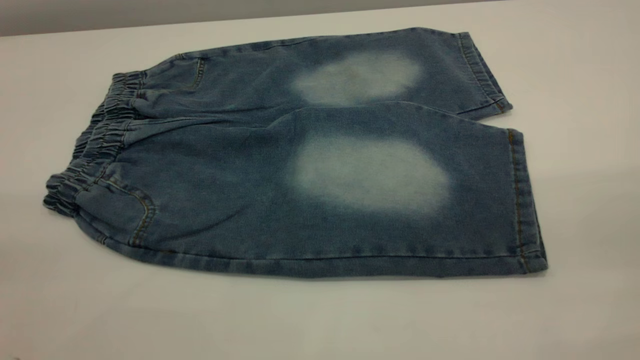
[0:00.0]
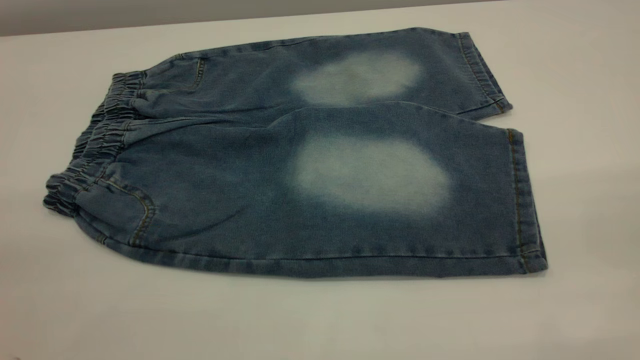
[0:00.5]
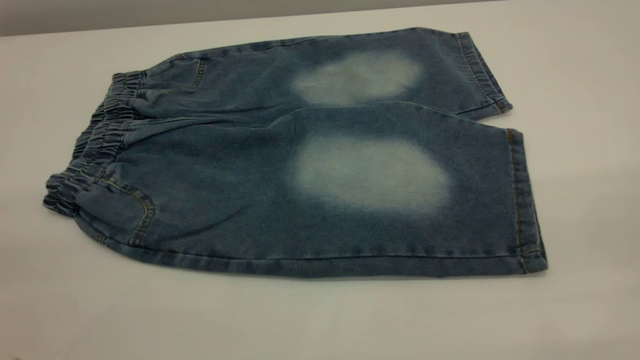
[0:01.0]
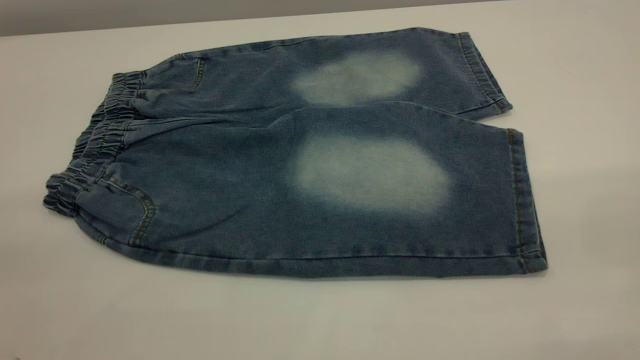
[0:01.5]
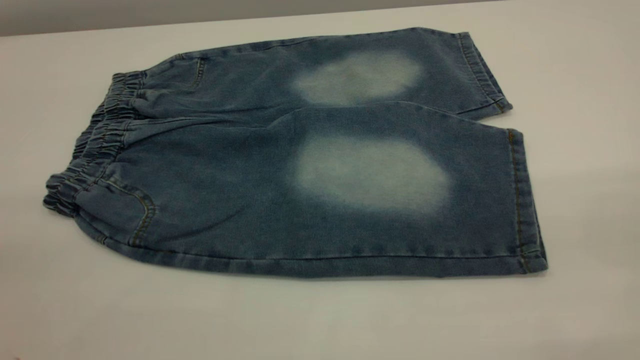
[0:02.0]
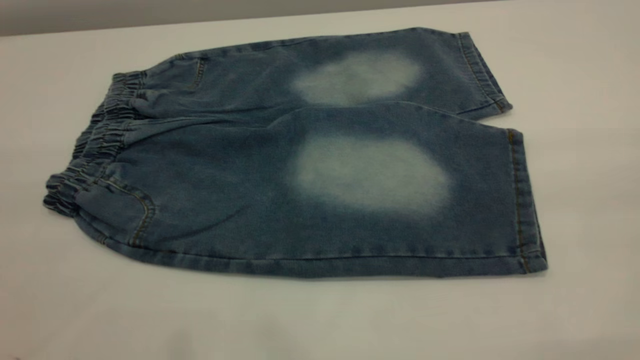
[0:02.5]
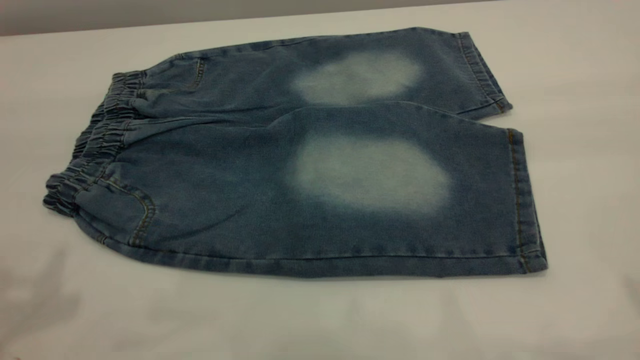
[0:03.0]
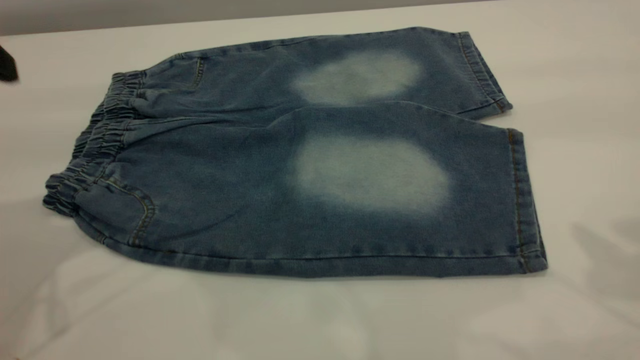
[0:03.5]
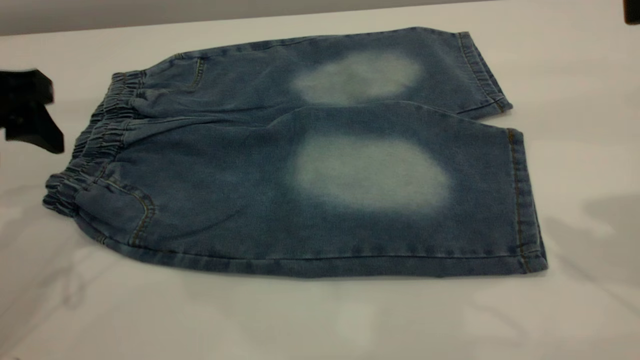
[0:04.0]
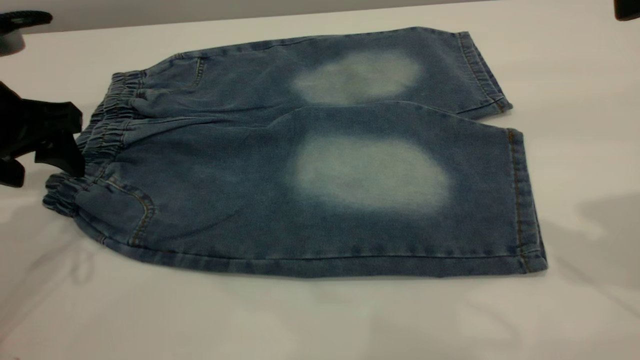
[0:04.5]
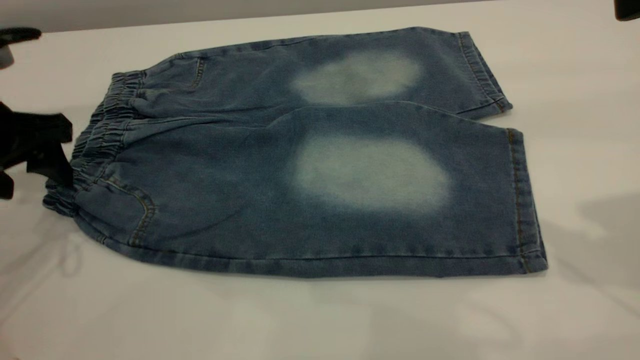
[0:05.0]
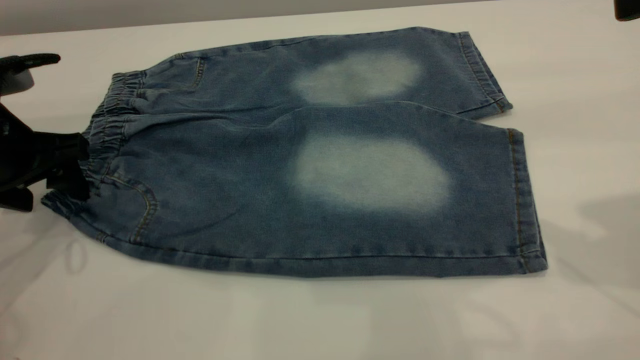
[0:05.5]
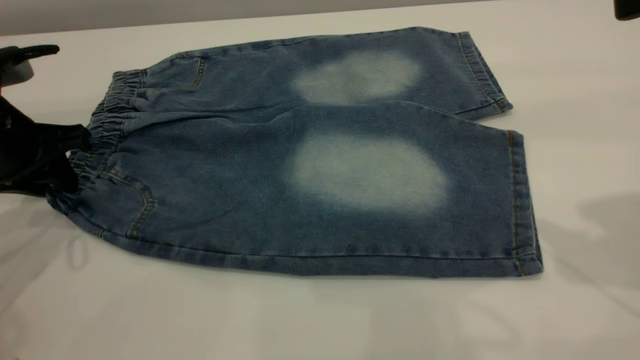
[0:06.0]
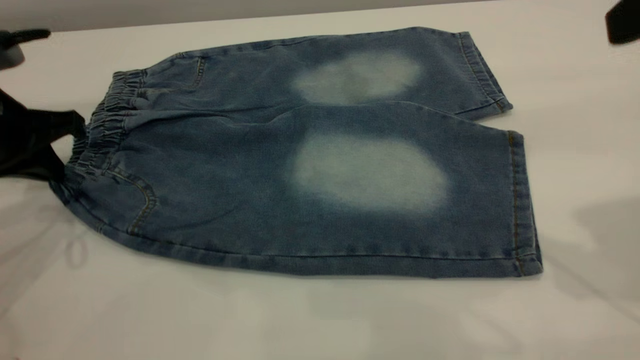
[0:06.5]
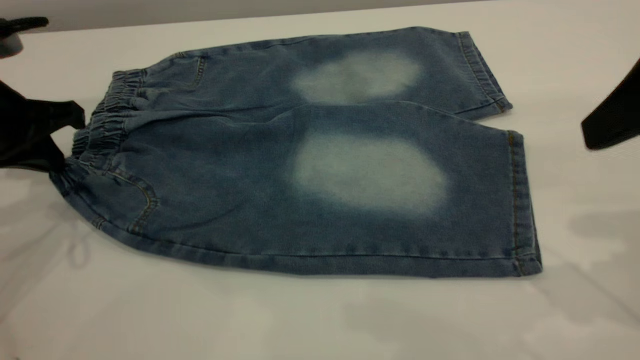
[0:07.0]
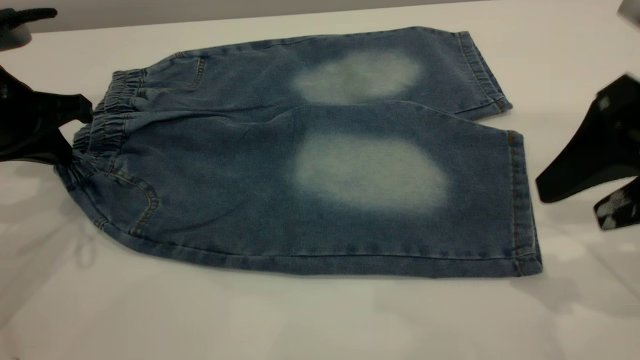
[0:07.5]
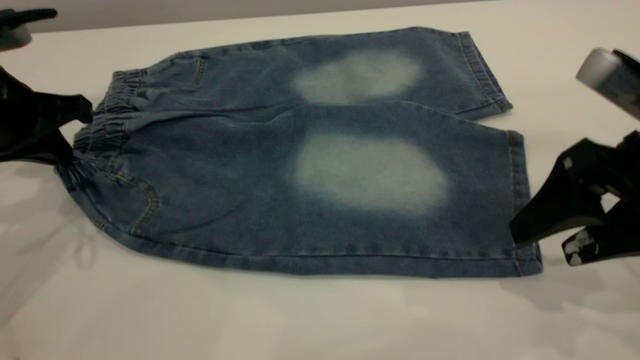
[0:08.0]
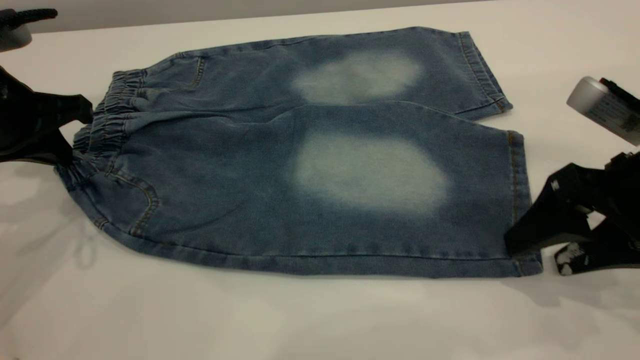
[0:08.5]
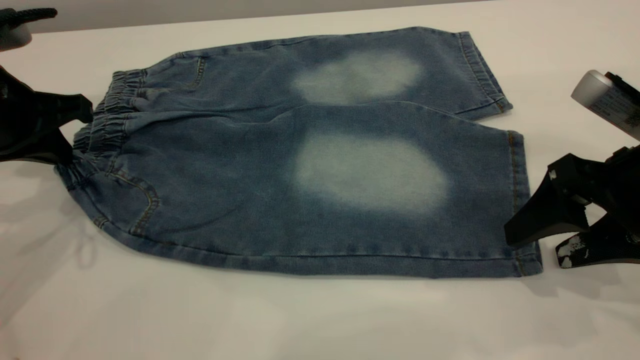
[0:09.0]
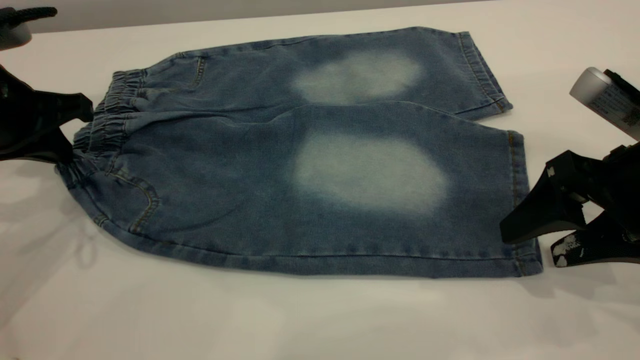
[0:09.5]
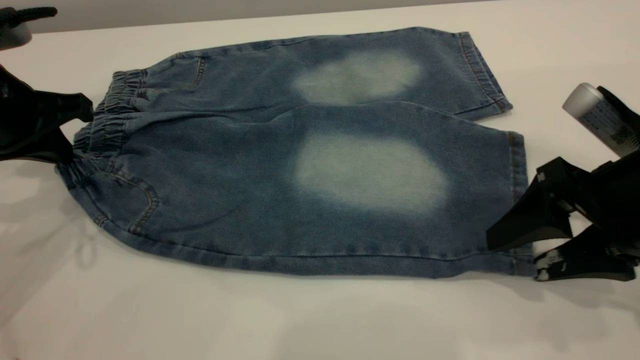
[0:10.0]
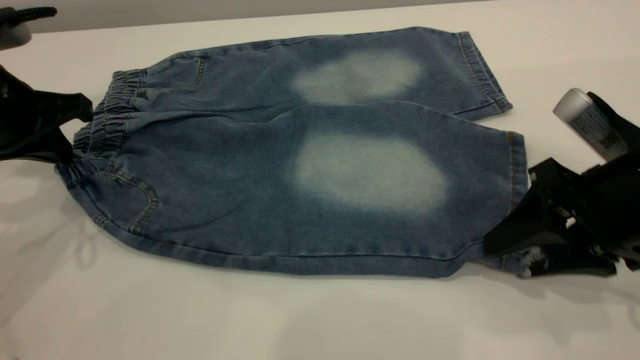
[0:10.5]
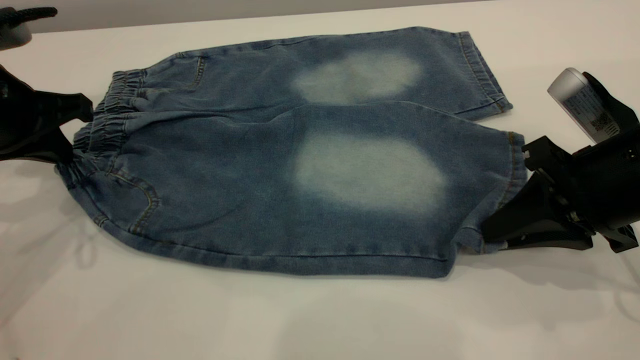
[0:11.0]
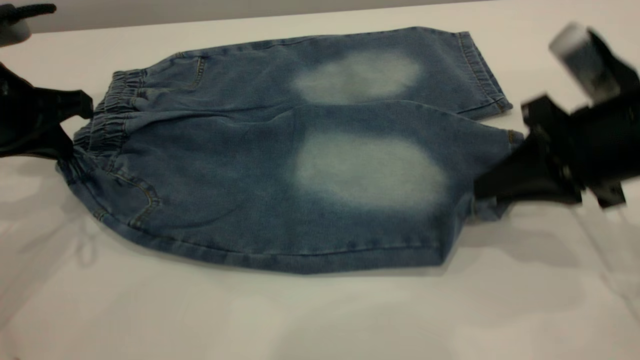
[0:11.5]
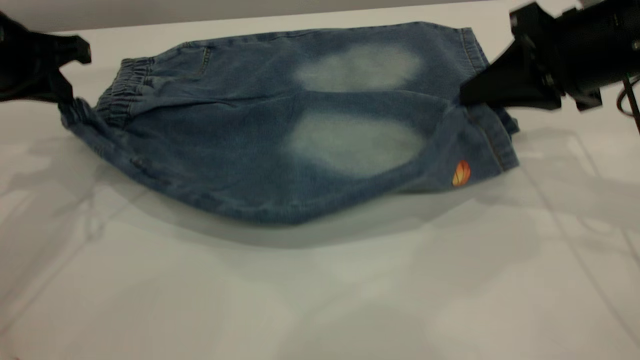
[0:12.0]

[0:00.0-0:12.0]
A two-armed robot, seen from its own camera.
0:00.0 to 0:02.0: The two grippers keep their place.
0:02.0 to 0:04.0: The left gripper goes roughly 30 cm forward and downward.
0:04.0 to 0:06.0: The left gripper goes about 5 cm downward, and closes.
0:06.0 to 0:08.0: The left gripper closes up. Meanwhile the right gripper goes approximately 15 cm downward.
0:08.0 to 0:10.0: The grippers move only a little.
0:10.0 to 0:12.0: The right gripper is displaced forward and upward by some 10 cm, and closes.

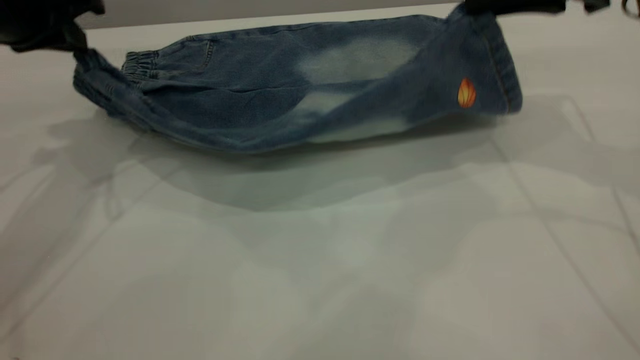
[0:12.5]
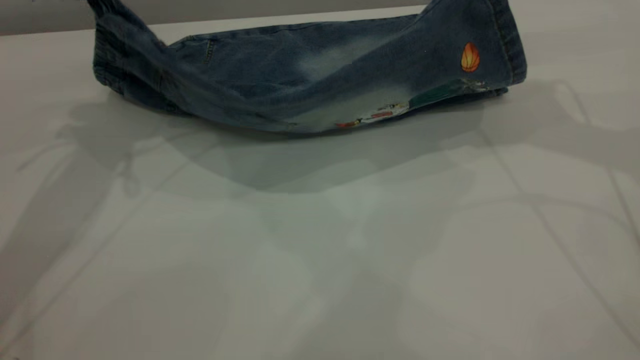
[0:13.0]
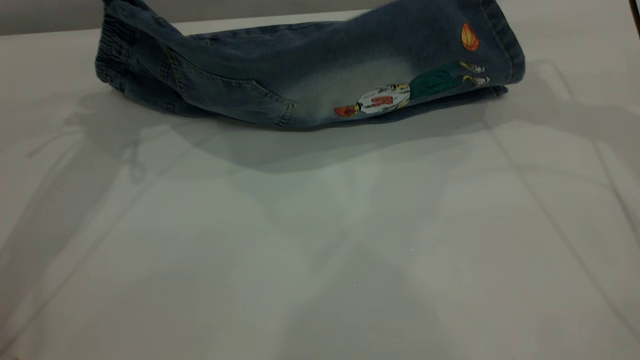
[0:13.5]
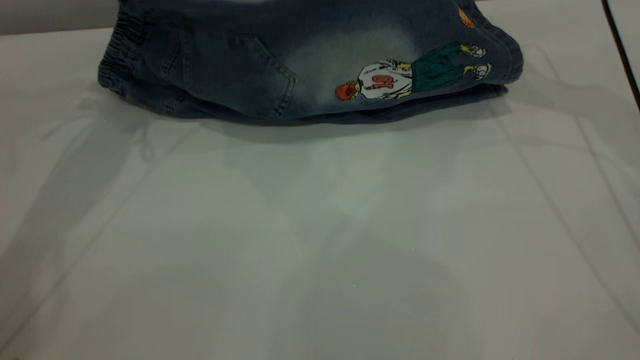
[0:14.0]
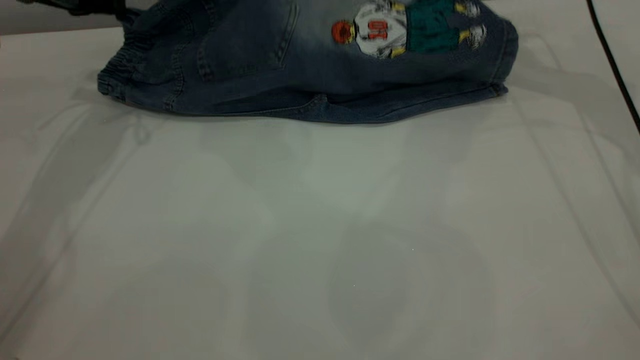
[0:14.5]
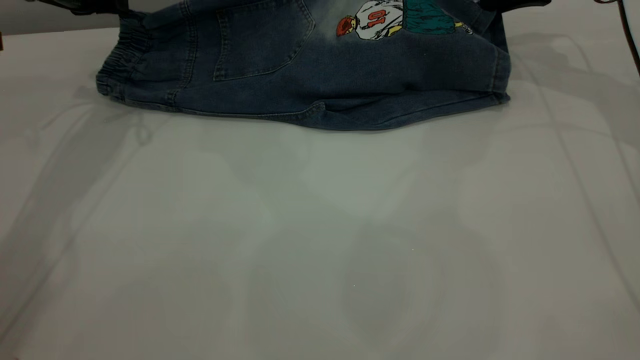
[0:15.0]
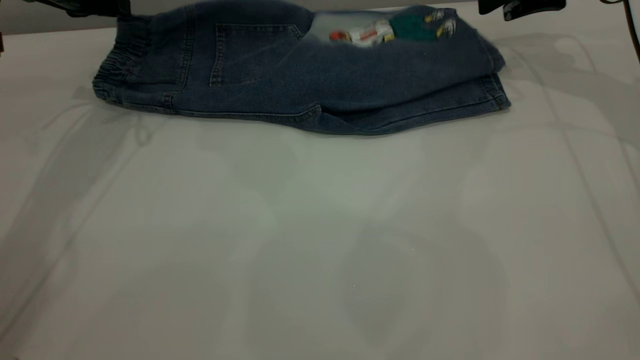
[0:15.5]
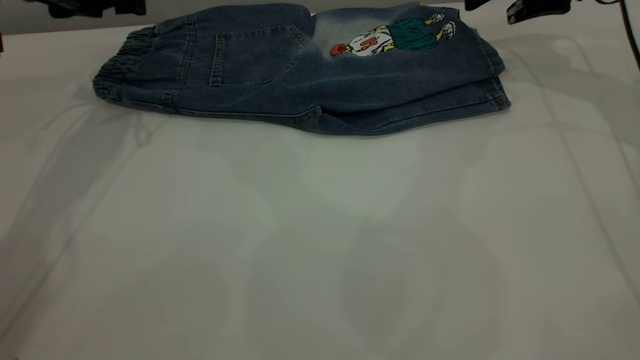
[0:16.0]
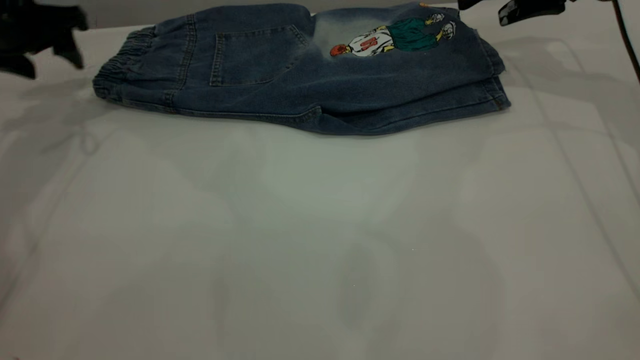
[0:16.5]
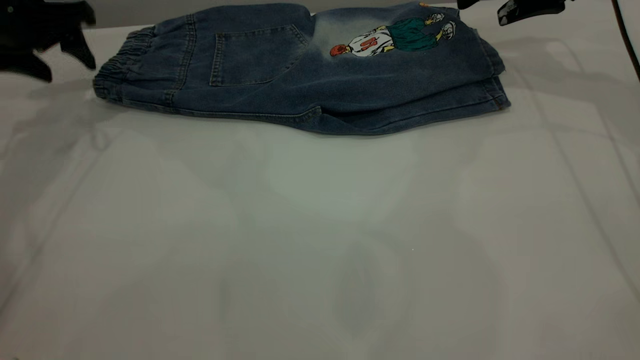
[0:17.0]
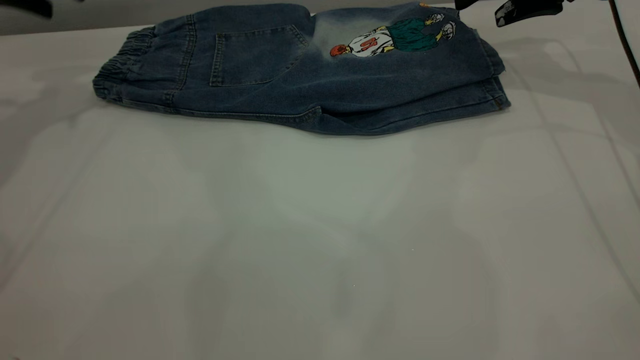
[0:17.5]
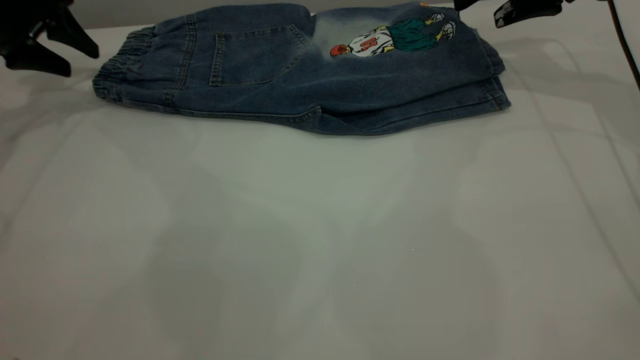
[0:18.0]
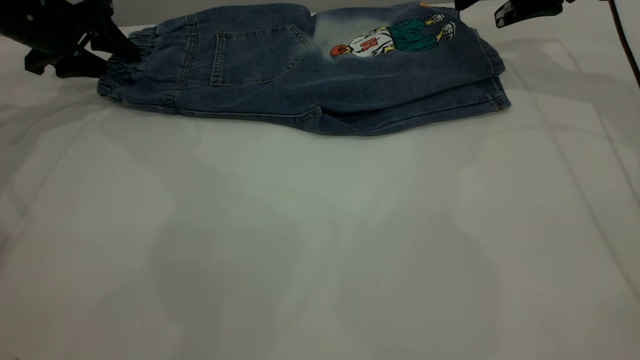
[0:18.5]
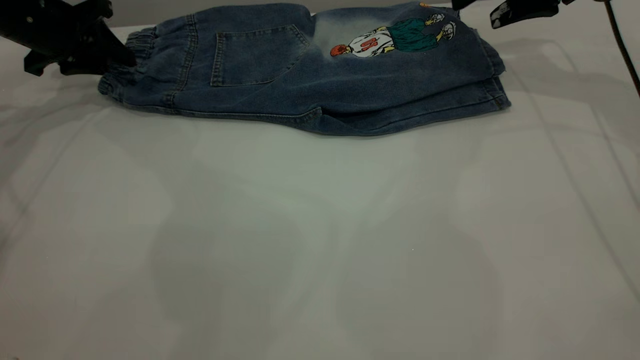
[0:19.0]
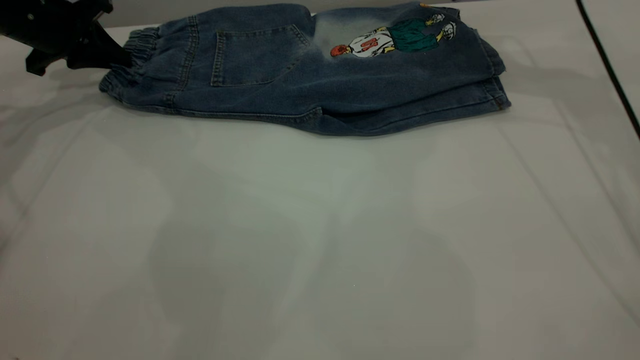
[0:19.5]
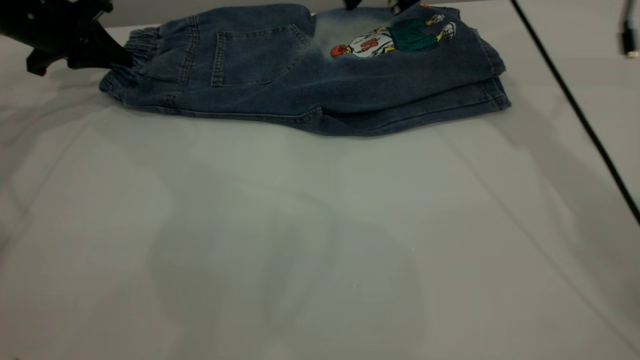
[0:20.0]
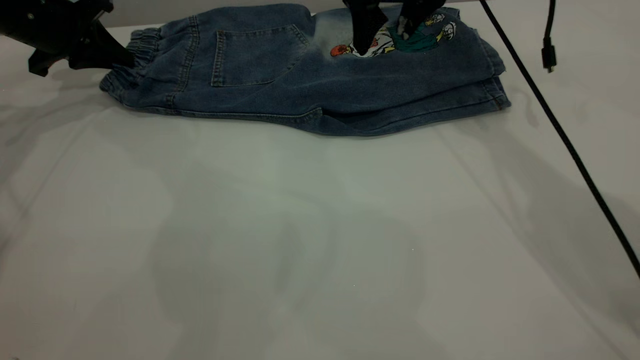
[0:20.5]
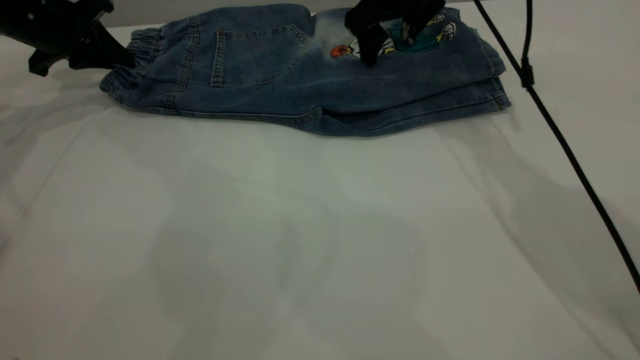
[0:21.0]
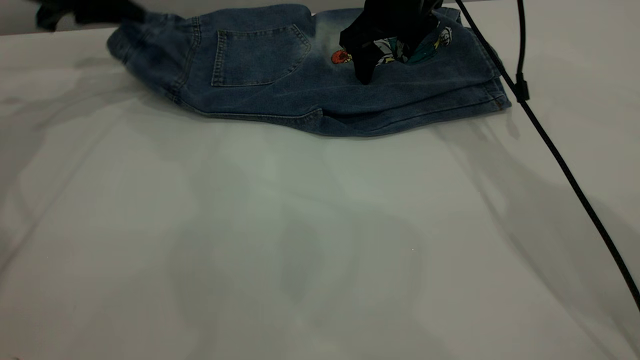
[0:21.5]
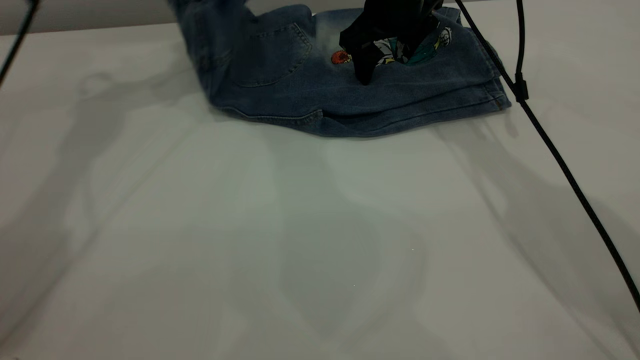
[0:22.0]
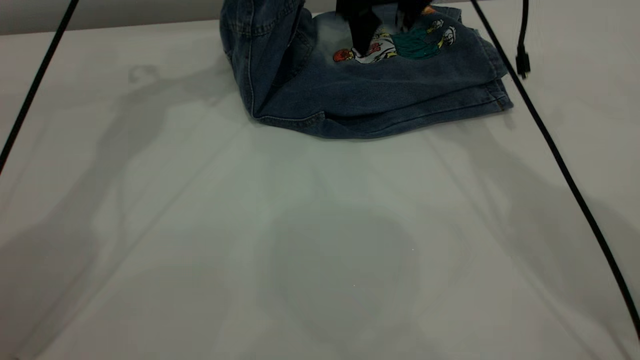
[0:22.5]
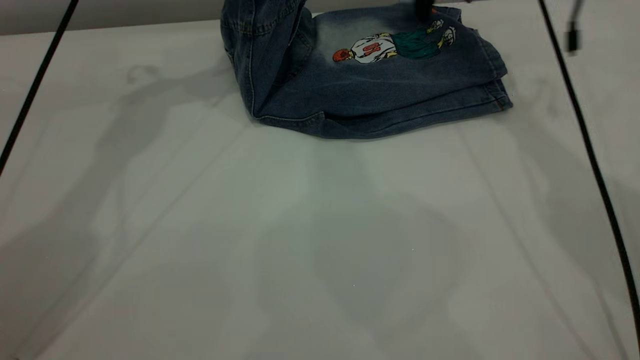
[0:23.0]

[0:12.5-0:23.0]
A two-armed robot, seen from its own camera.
Step, 0:12.5 to 0:15.5: Fold the bottom of the pants upward.
0:12.5 to 0:14.5: Both grippers travel together forward, roughly 10 cm.
0:14.5 to 0:16.5: The left gripper goes some 5 cm to the left, and opens up; the right gripper opens its fingers.
0:16.5 to 0:19.0: The left gripper travels upward and back again, approximately 5 cm each way, and closes up.
0:19.0 to 0:21.0: The right gripper travels to the left by approximately 15 cm.
0:21.0 to 0:23.0: The left gripper moves to the right and upward, about 25 cm. The right gripper travels to the right by approximately 5 cm.
